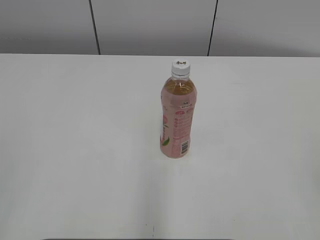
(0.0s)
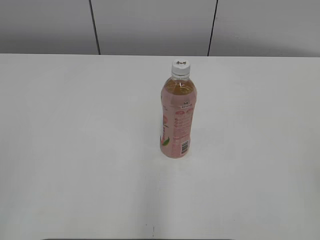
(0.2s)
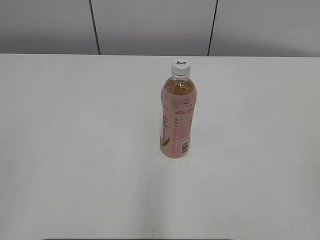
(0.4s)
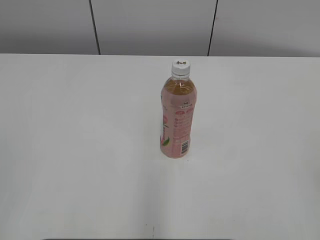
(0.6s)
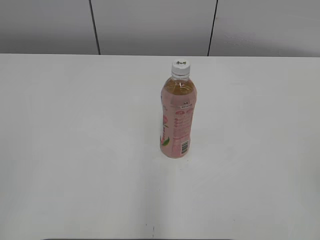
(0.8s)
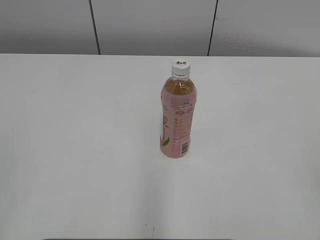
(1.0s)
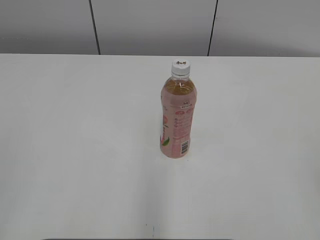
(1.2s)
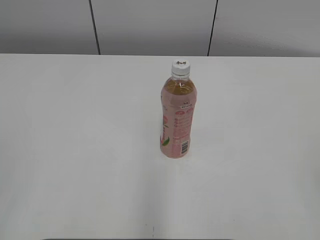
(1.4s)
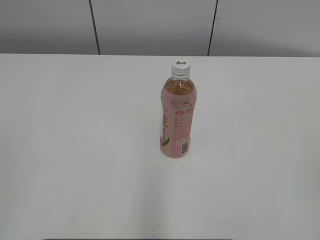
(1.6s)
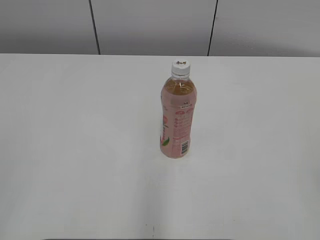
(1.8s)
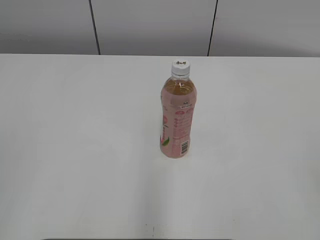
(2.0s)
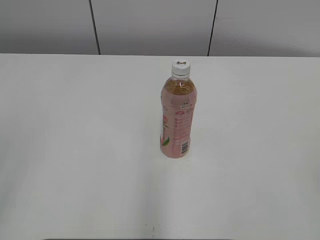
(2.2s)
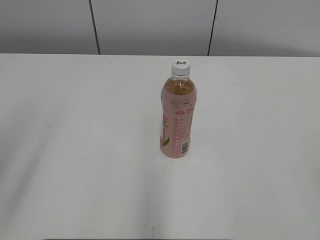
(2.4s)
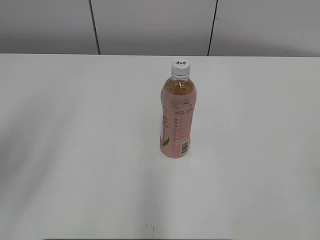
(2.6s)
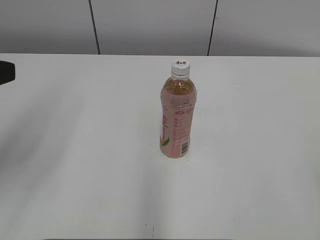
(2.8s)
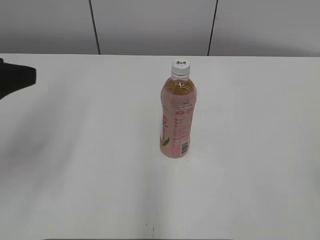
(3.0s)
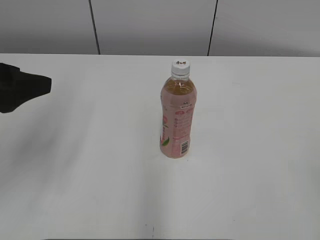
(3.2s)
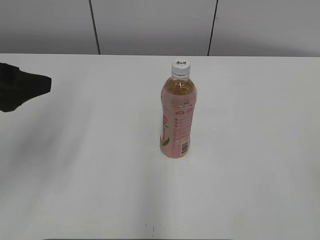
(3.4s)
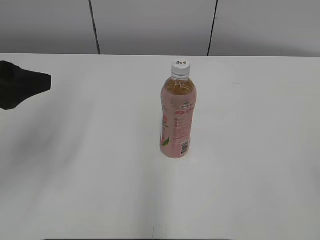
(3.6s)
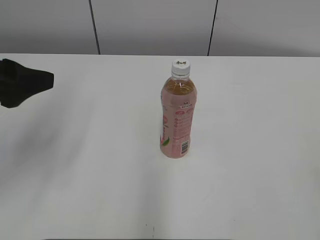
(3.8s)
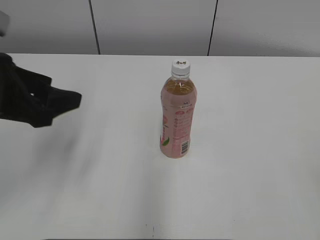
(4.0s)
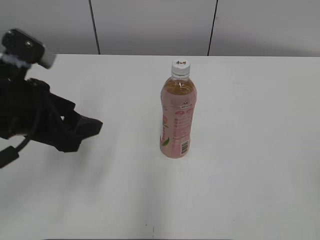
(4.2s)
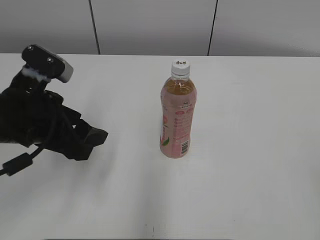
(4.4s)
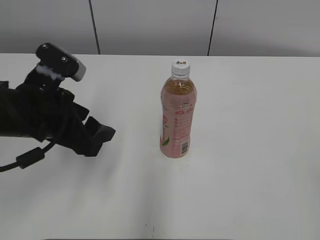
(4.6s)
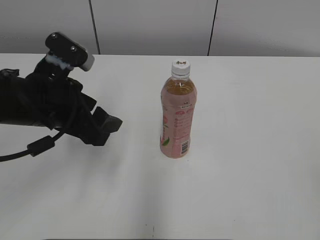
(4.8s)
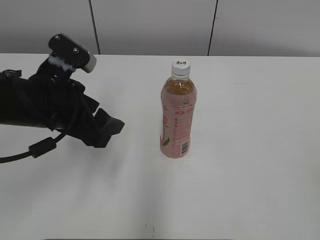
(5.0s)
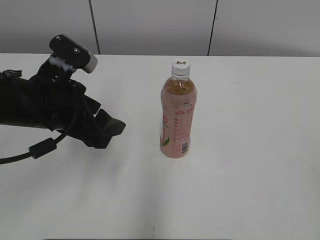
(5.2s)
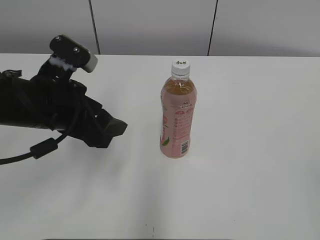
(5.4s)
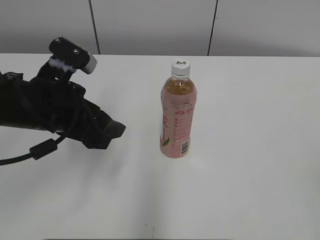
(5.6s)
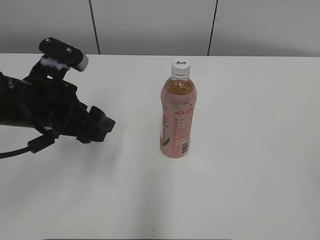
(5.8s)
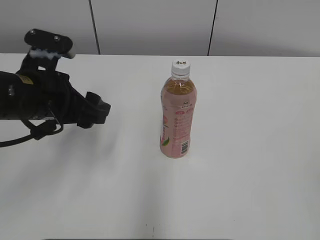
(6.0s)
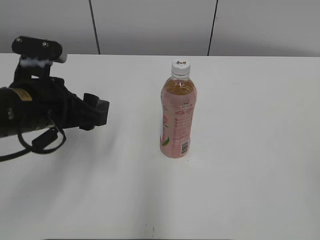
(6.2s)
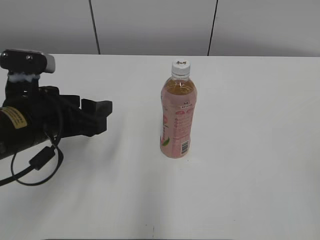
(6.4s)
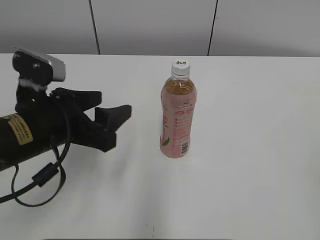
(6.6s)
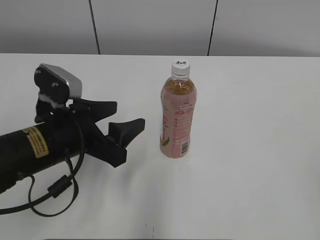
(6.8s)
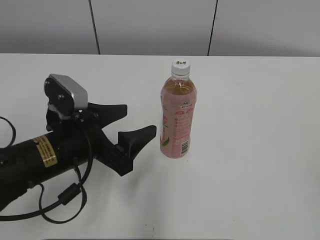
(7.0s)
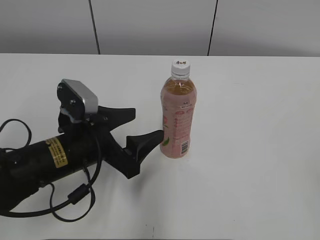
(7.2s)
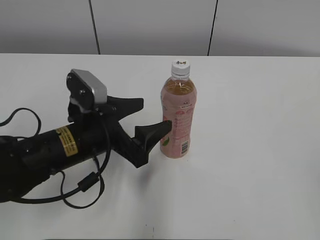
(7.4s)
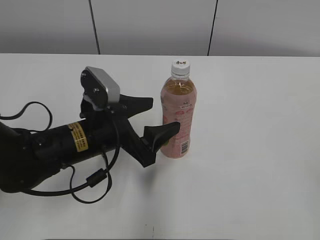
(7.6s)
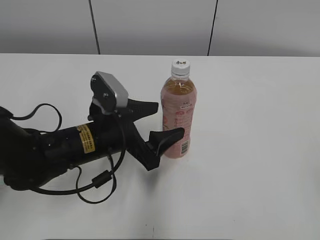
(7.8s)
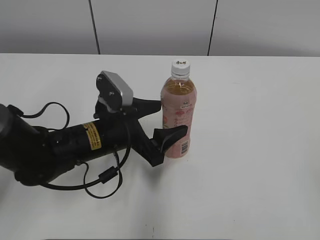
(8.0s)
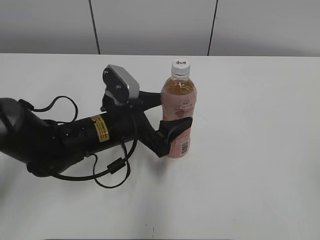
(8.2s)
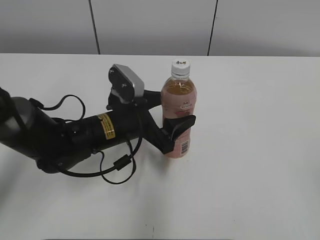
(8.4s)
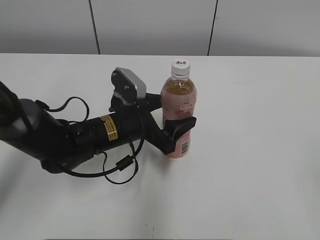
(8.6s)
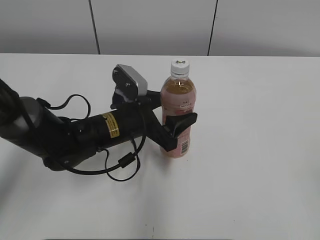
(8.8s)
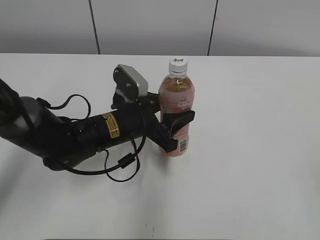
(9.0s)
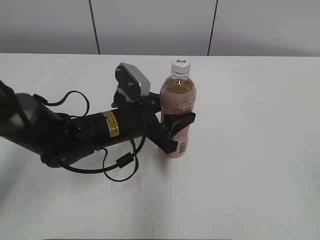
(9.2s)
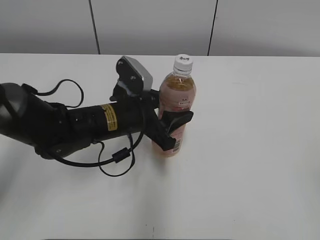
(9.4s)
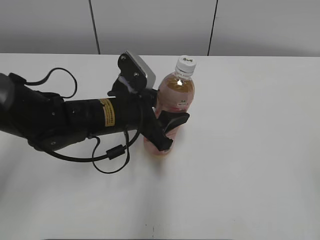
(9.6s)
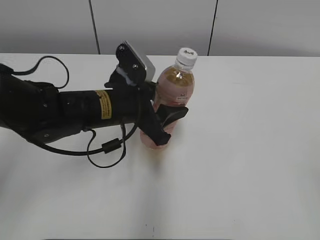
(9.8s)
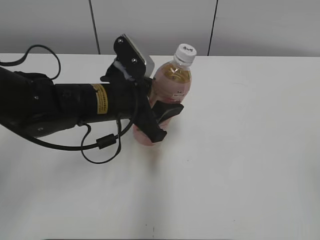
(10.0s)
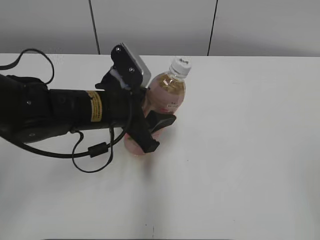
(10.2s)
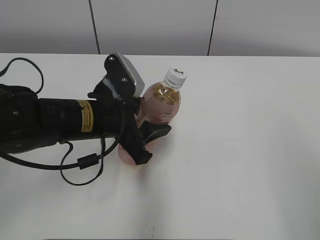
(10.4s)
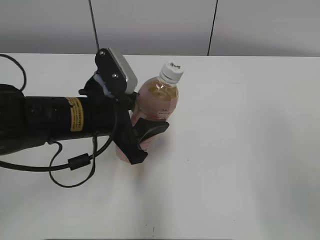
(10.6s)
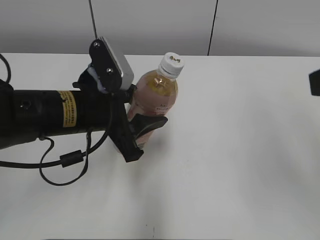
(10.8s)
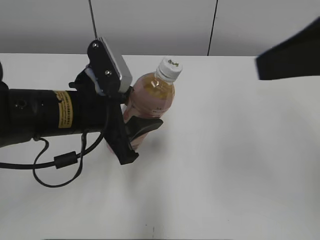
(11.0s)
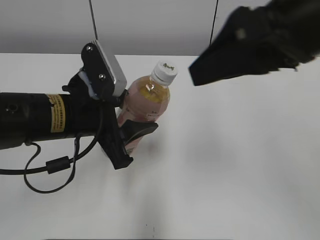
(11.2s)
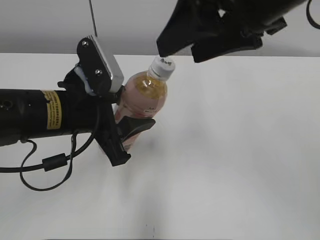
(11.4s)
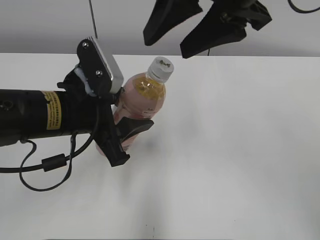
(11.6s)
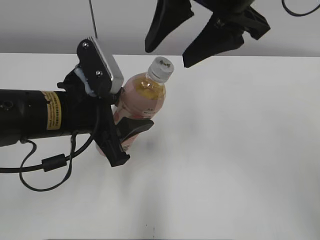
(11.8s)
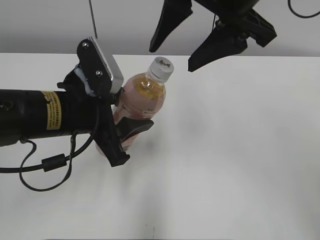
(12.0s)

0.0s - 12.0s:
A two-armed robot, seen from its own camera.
Step, 0.0s - 9.0s: Grab the Peach Oolong Tea with the left hand.
Step, 9.2s - 11.4s: Lift the Peach Oolong Tea with the left hand.
1.6s - 3.0s: The left gripper travels forward by about 20 cm, and opens up.
3.0s - 4.4s: The left gripper heads downward and to the right, covering roughly 10 cm.
4.4s - 6.0s: There are only small adjustments of the grippers.
6.0s - 7.6s: The left gripper moves downward and to the right, about 10 cm.
7.6s - 9.0s: The left gripper moves some 5 cm, and closes up.
9.0s - 10.4s: The right gripper moves some 5 cm. Meanwhile the left gripper goes approximately 5 cm upward.
10.4s - 12.0s: The left gripper moves roughly 5 cm. The right gripper is displaced forward and to the left by about 30 cm.

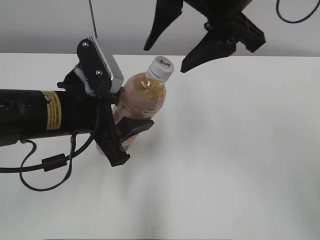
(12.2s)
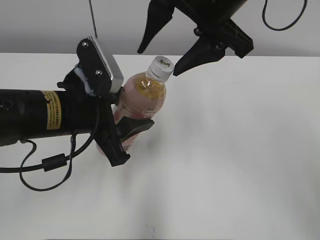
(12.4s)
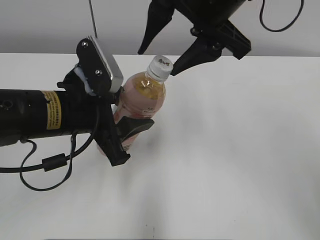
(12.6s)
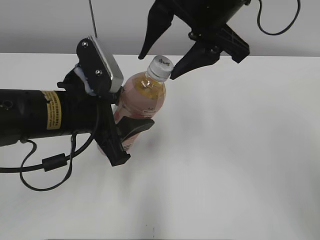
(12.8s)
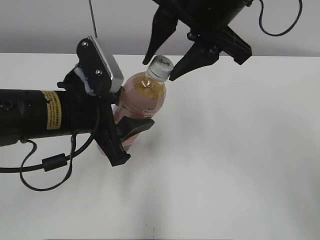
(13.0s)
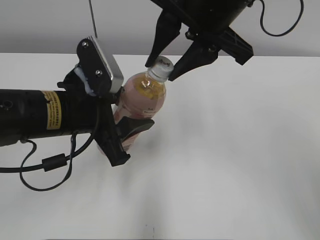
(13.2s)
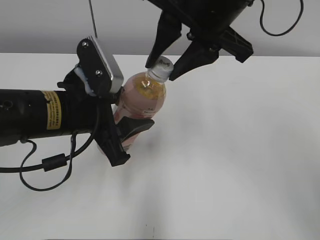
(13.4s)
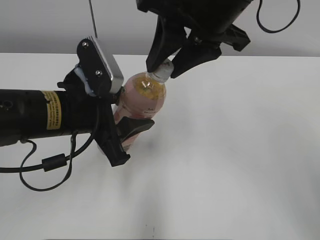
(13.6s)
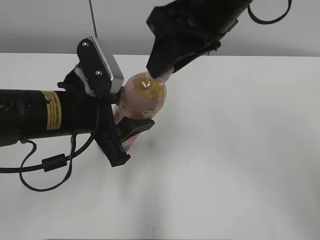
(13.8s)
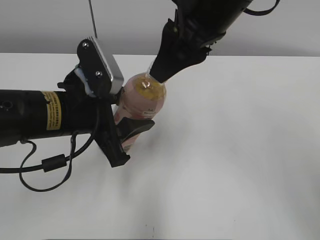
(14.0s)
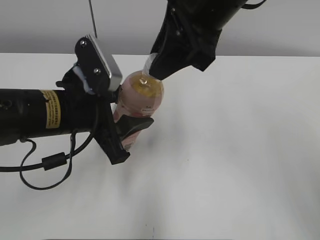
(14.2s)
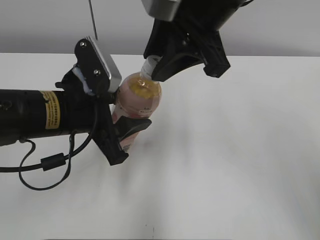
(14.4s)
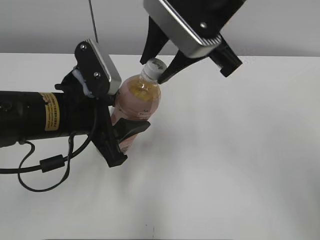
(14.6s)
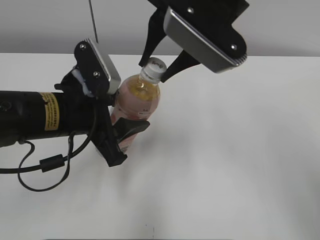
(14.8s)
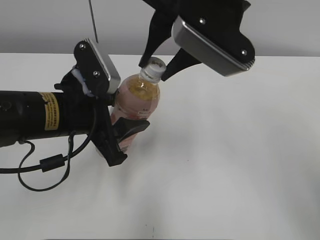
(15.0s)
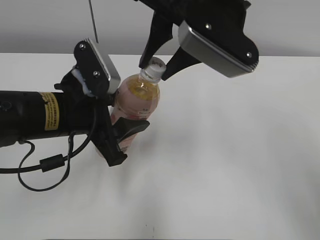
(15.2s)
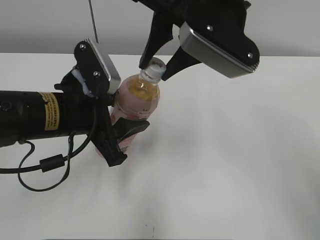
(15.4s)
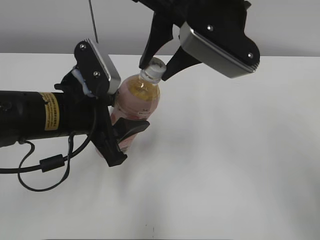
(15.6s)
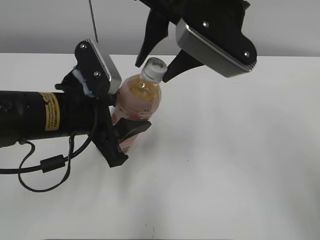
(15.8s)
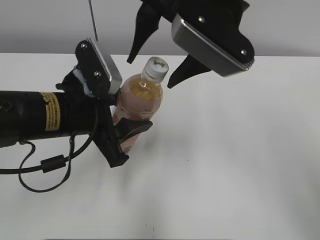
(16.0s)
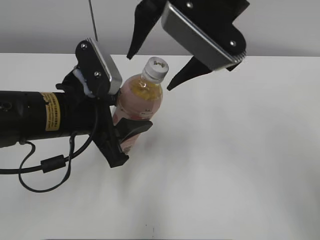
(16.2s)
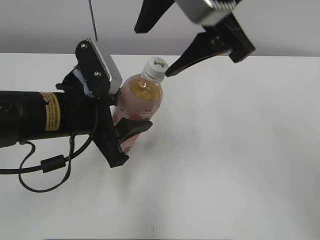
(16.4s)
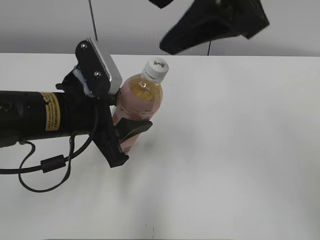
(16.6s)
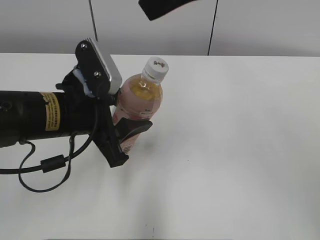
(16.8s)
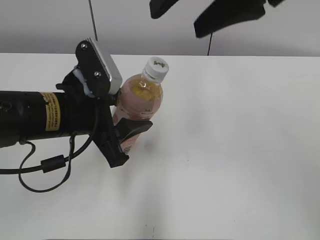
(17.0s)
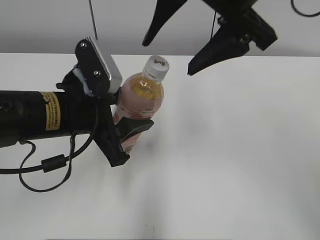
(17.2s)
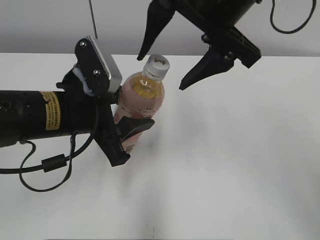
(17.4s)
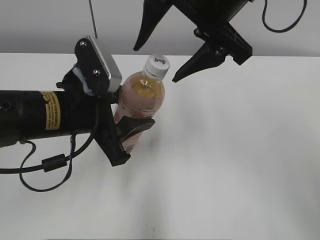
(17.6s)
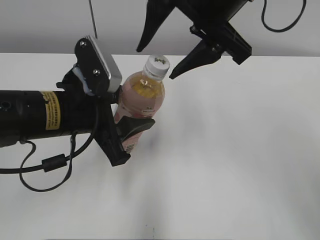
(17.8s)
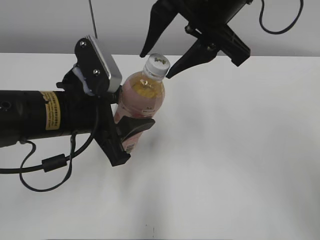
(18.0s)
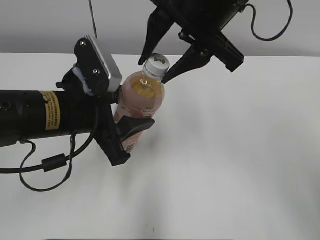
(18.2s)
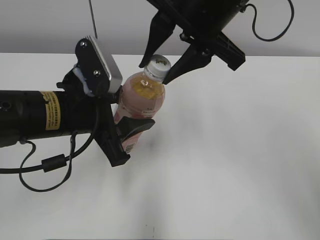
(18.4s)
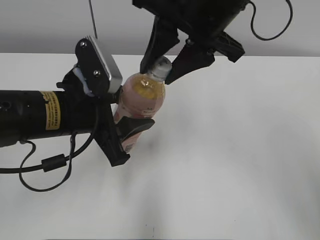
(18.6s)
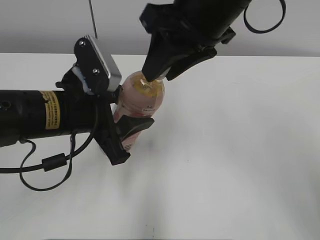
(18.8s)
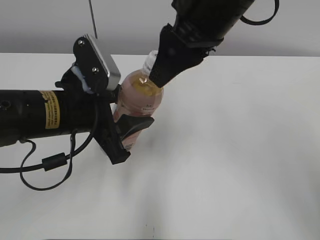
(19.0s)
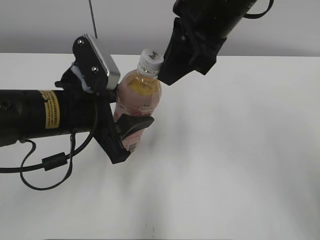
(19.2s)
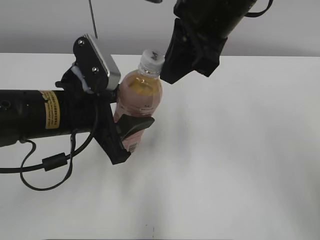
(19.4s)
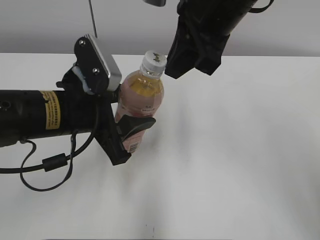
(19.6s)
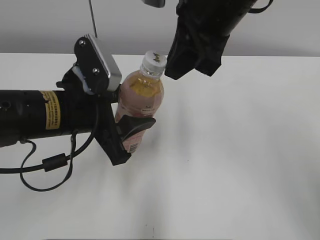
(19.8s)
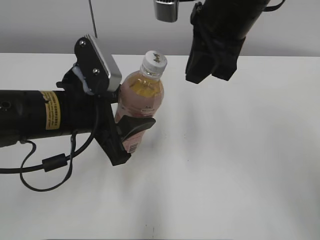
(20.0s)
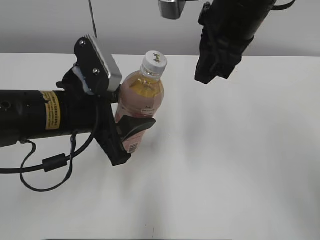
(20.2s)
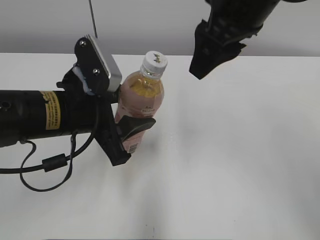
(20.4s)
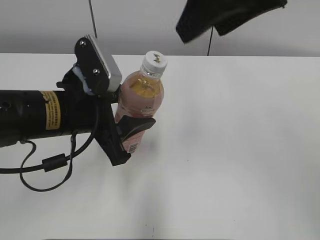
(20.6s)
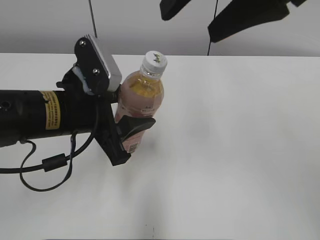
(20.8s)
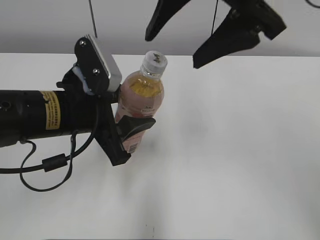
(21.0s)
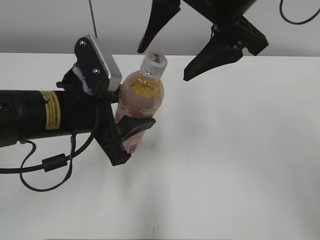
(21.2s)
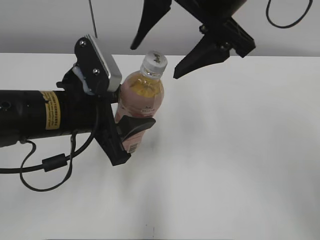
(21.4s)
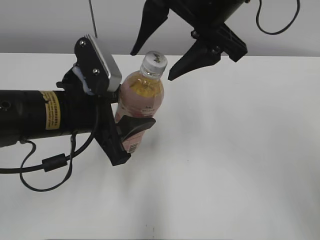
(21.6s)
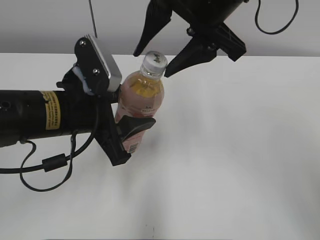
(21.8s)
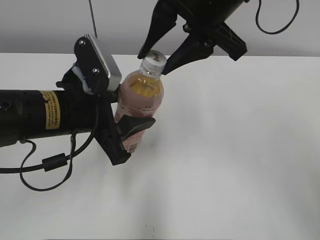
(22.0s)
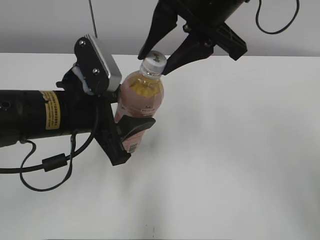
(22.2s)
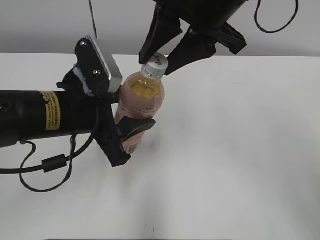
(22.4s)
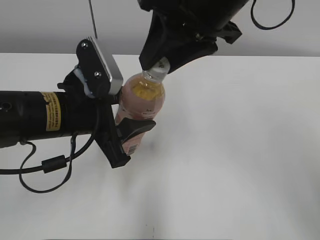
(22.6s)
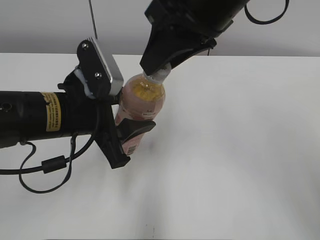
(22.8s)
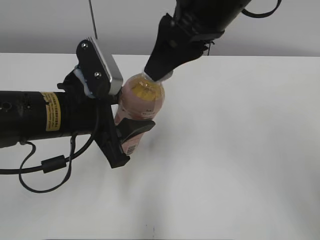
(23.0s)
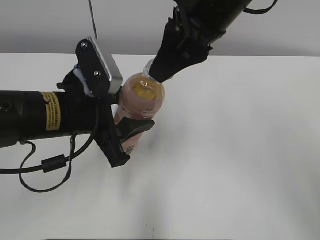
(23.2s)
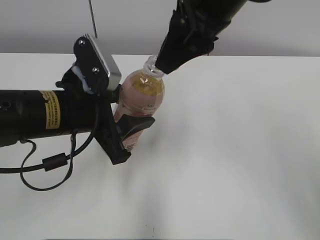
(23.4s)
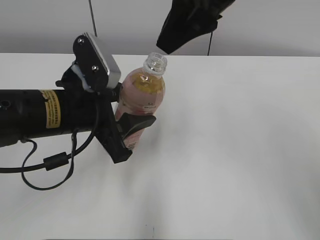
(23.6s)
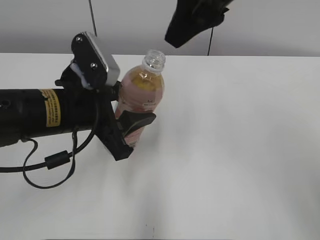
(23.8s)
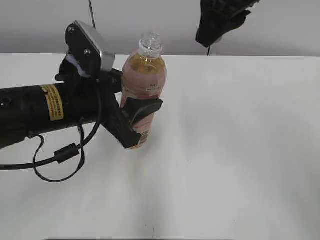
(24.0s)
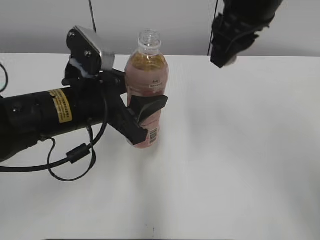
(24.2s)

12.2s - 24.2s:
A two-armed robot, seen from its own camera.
12.2s - 13.8s: The right gripper closes its fingers.
15.2s - 16.6s: The right gripper goes about 5 cm upward, and opens up.
16.6s - 18.2s: The right gripper moves downward, about 5 cm, and closes its fingers.
18.2s - 19.8s: The right gripper closes its fingers.
19.8s - 21.2s: The right gripper opens up.
21.2s - 22.6s: The right gripper closes up.
22.6s - 24.2s: The right gripper moves roughly 5 cm.
